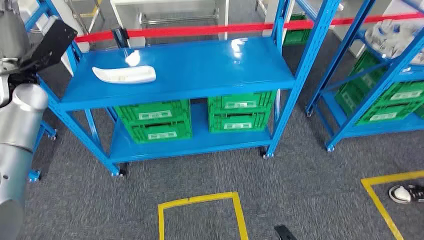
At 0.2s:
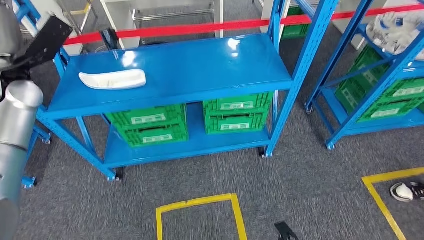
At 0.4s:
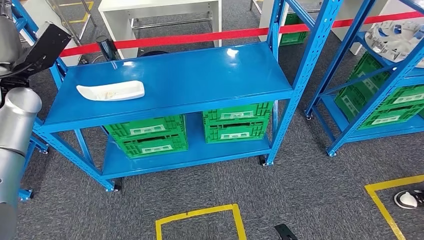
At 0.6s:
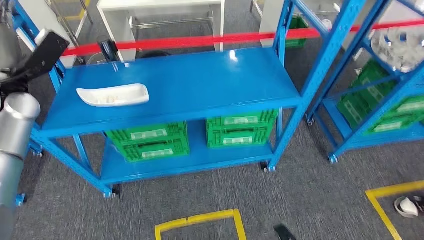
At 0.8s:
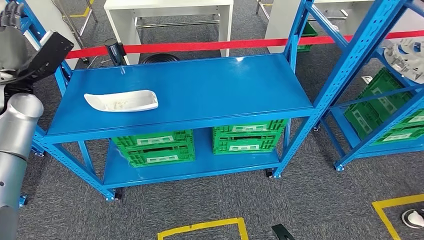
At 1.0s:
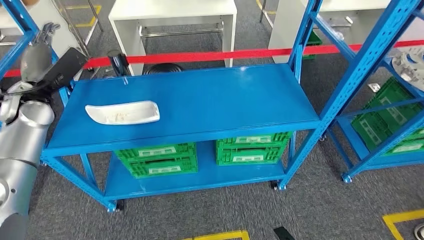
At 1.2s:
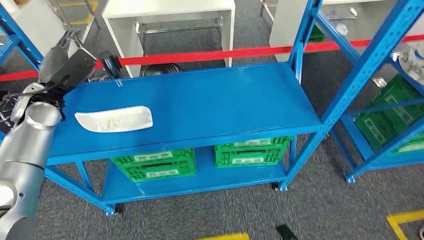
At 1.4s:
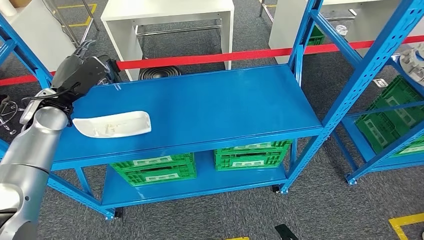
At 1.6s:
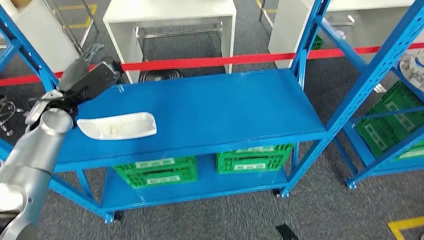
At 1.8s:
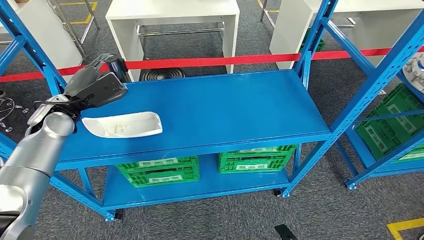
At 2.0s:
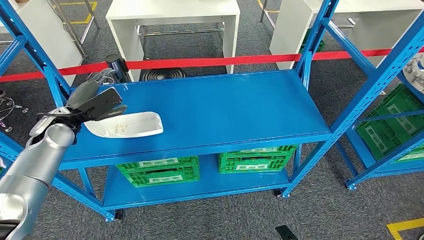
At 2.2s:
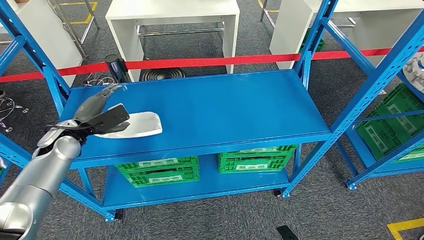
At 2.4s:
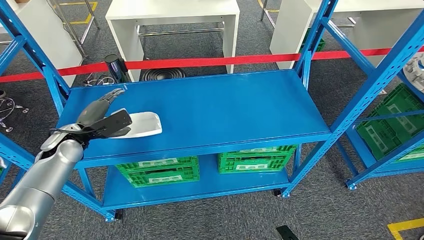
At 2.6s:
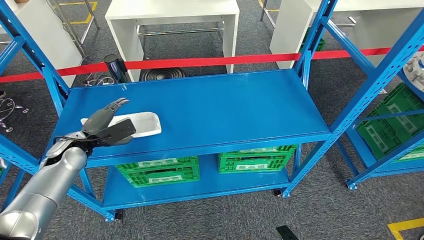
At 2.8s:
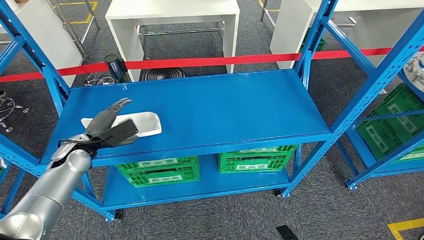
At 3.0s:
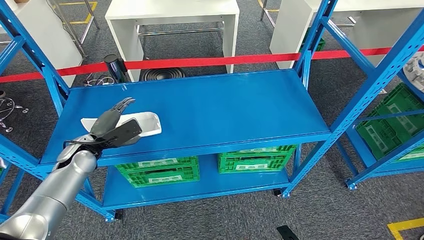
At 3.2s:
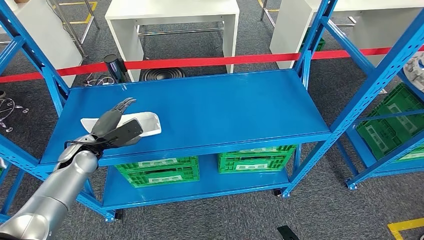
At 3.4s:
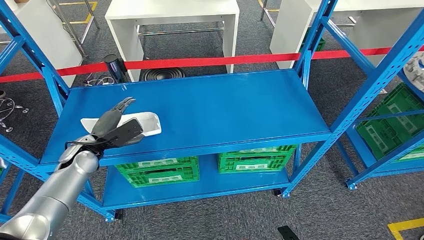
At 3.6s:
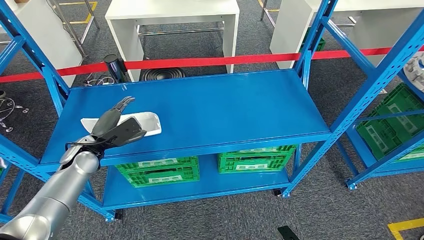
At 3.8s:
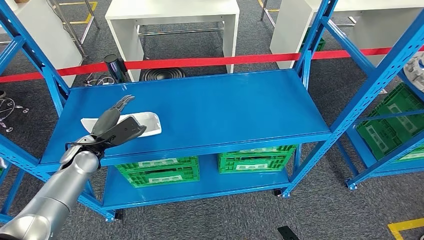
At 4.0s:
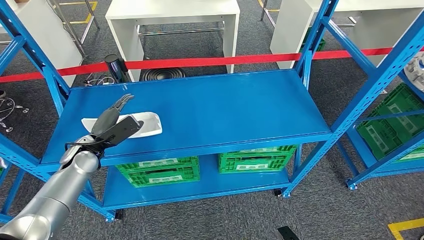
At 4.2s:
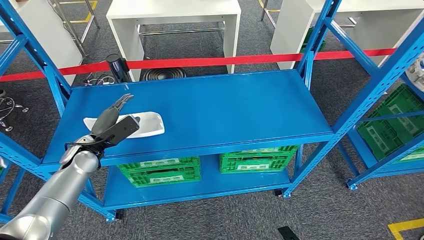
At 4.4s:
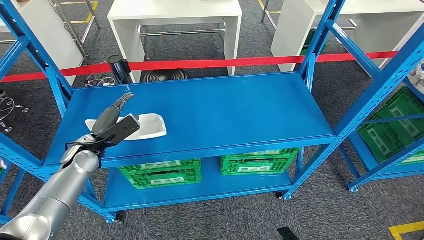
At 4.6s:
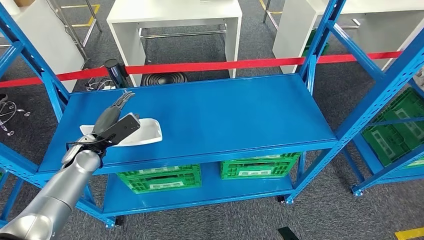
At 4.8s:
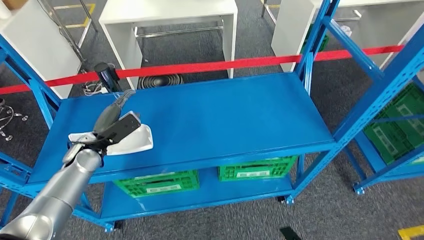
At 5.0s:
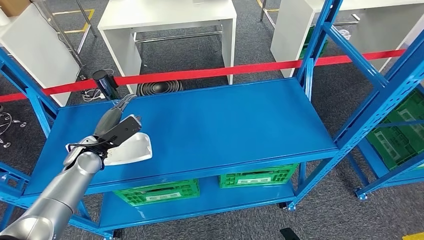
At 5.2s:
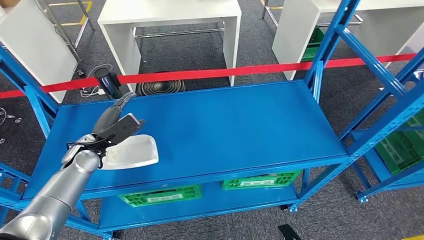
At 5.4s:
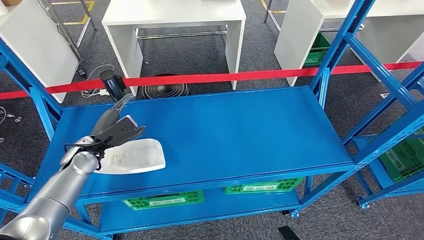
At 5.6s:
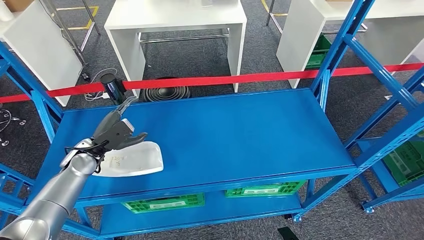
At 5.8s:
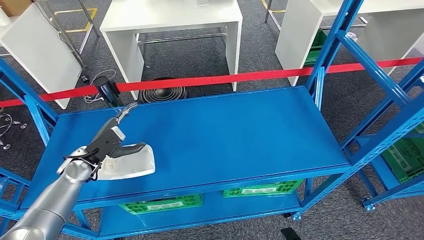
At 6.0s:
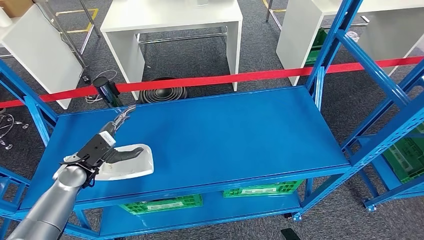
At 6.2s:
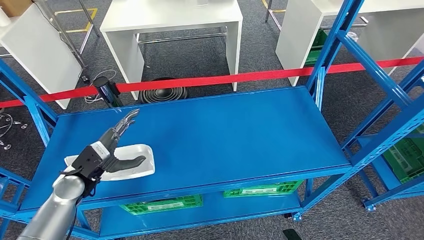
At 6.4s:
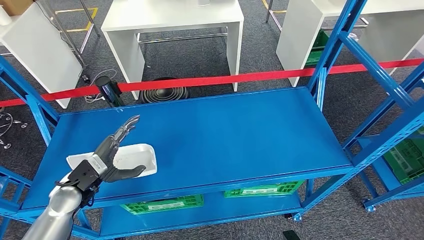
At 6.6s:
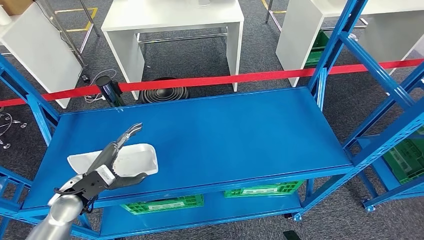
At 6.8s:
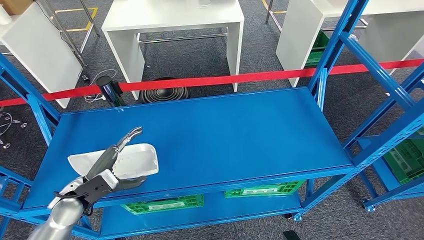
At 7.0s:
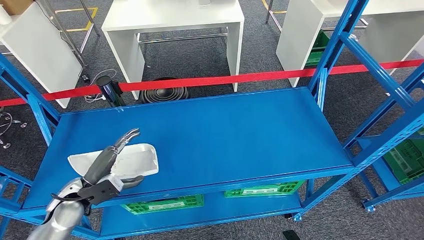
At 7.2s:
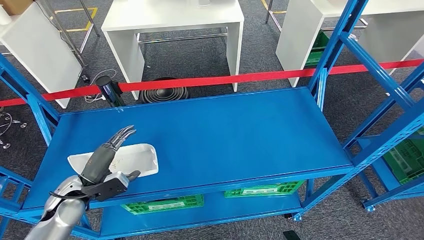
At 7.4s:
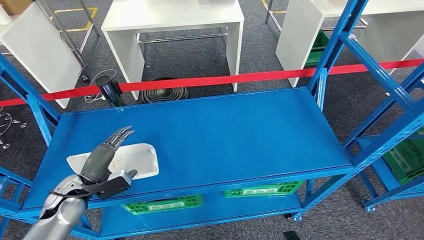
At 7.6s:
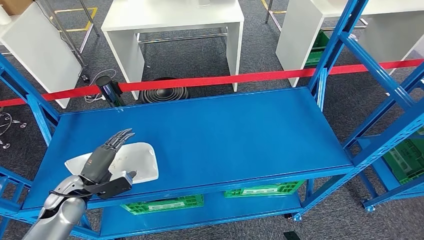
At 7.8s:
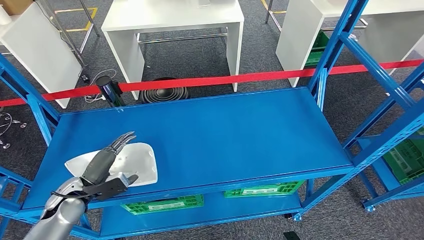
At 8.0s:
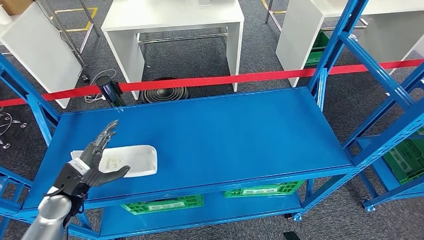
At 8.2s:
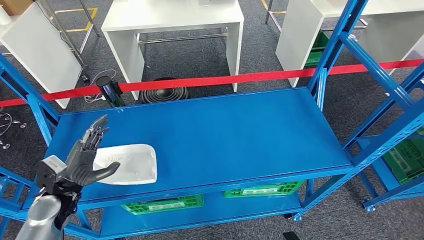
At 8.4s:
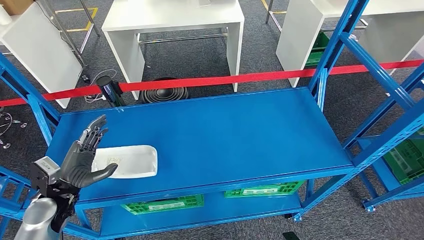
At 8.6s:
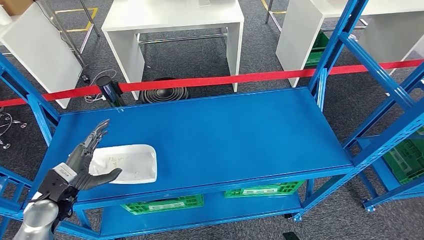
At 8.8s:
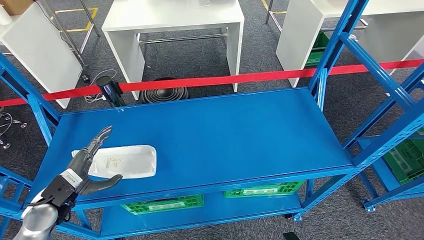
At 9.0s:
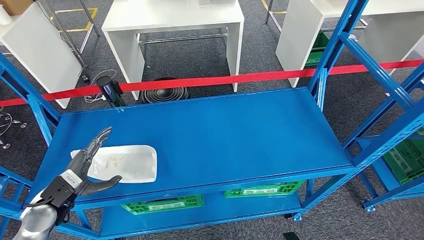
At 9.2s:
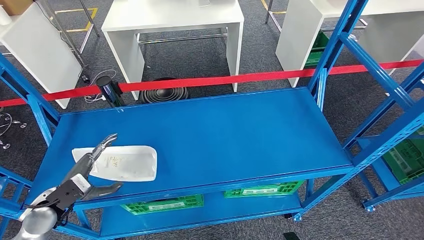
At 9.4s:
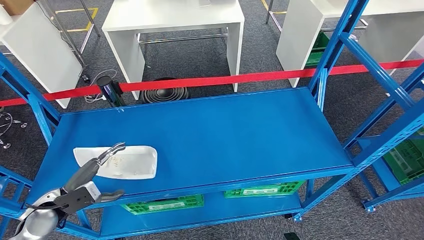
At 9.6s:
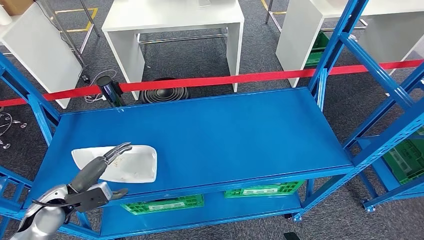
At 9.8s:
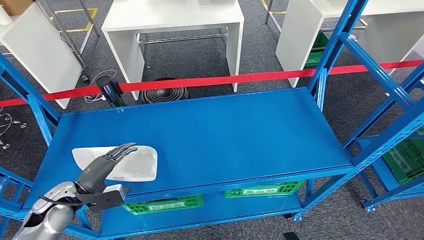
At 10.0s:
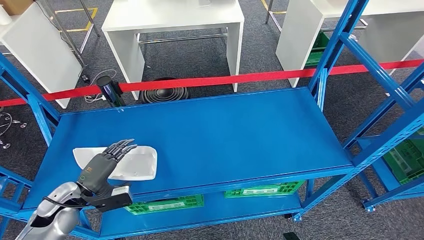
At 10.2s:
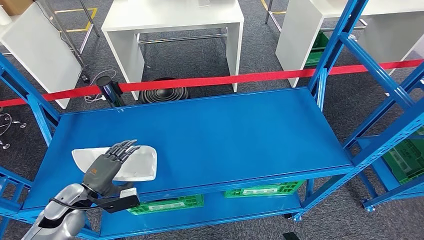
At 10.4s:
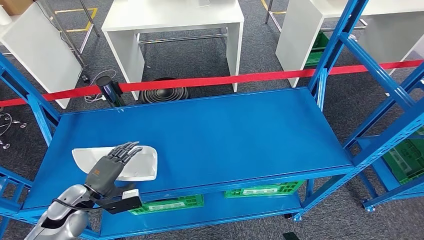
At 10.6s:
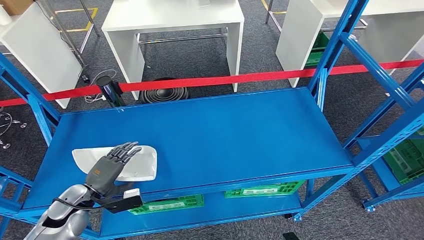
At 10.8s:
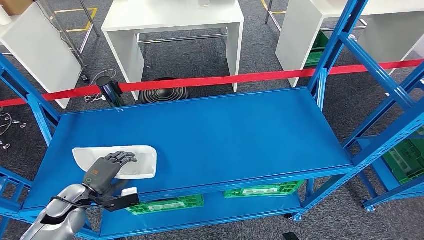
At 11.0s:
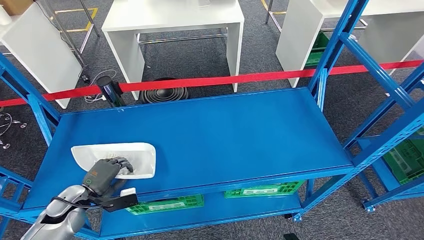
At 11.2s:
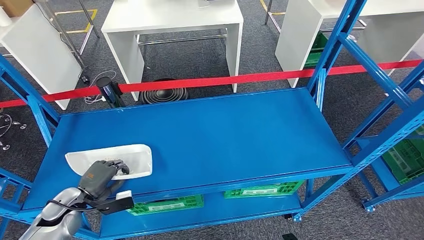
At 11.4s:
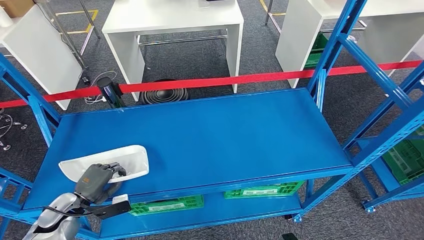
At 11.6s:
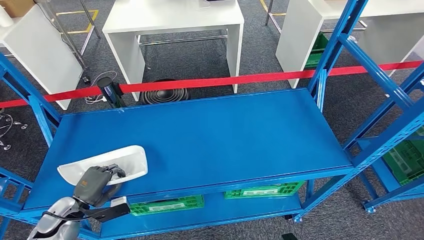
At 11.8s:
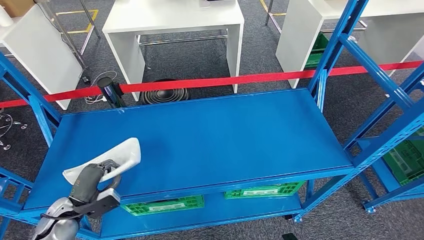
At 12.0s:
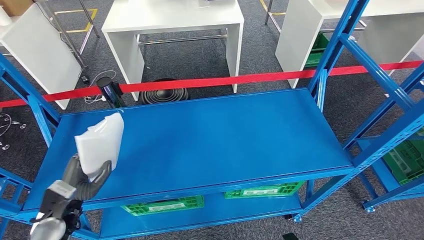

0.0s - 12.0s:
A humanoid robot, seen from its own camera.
3.0s - 4.4s: There are only small adjustments of the hands.
6.0s - 7.6s: The left hand heads backward, covering about 5 cm.

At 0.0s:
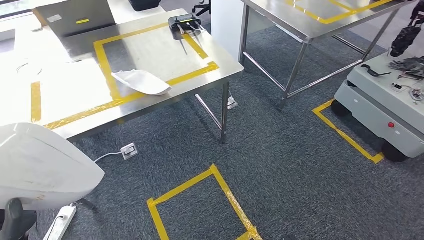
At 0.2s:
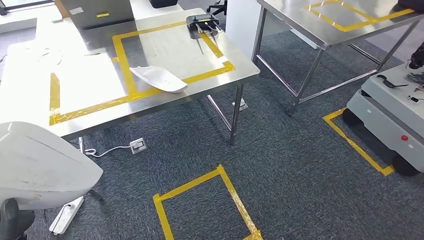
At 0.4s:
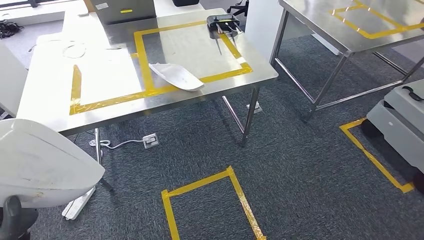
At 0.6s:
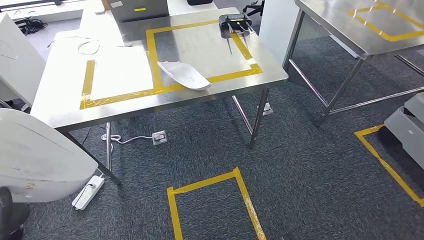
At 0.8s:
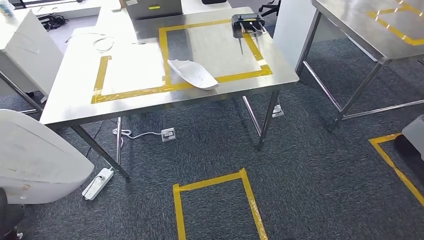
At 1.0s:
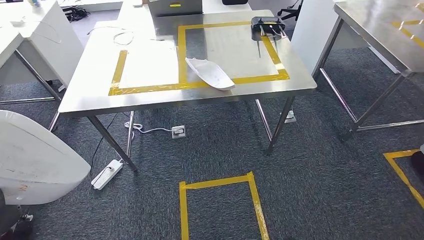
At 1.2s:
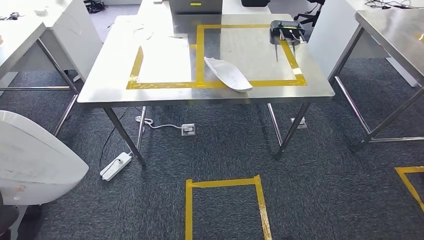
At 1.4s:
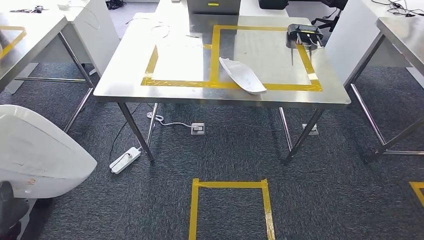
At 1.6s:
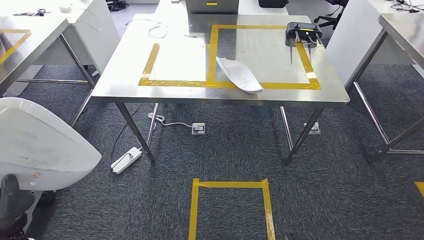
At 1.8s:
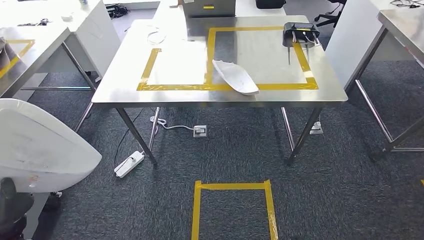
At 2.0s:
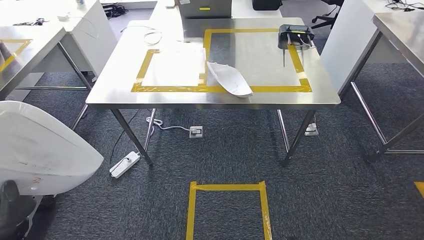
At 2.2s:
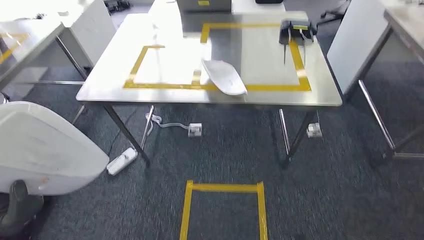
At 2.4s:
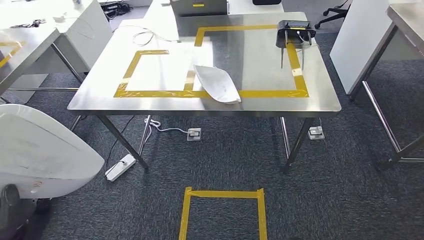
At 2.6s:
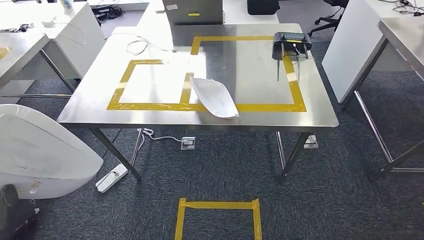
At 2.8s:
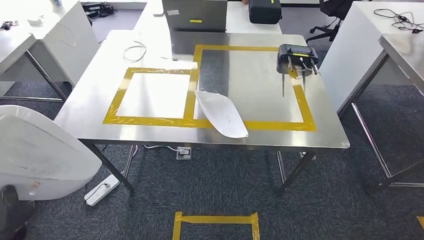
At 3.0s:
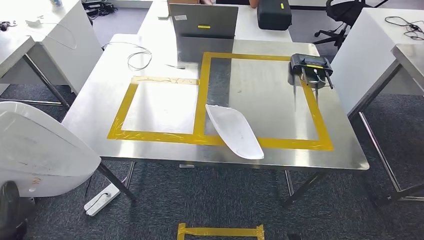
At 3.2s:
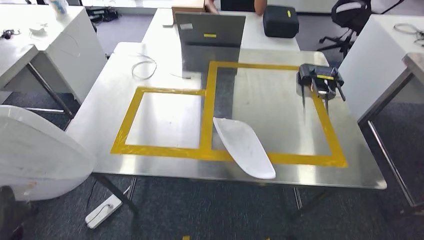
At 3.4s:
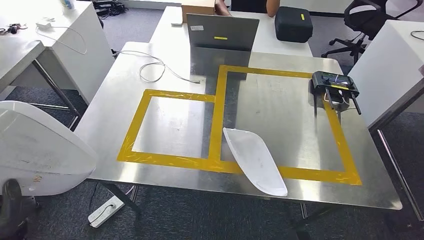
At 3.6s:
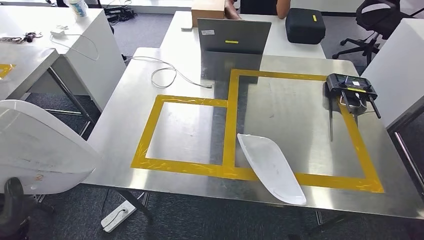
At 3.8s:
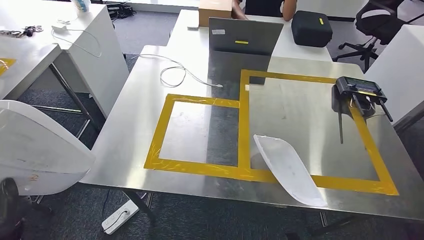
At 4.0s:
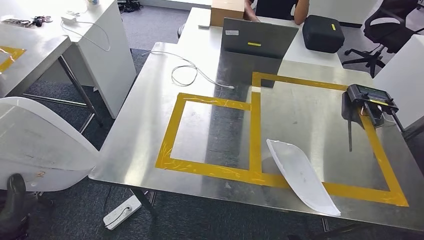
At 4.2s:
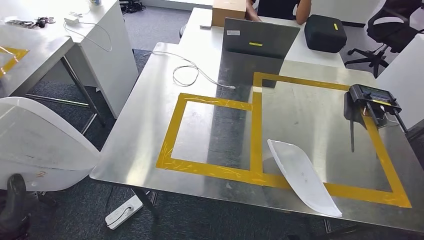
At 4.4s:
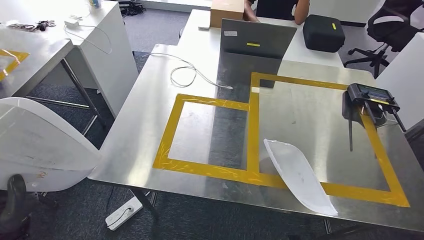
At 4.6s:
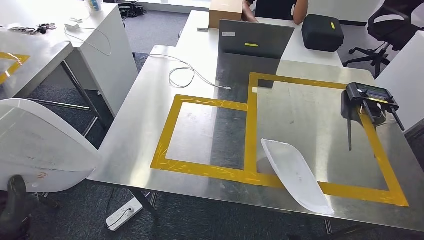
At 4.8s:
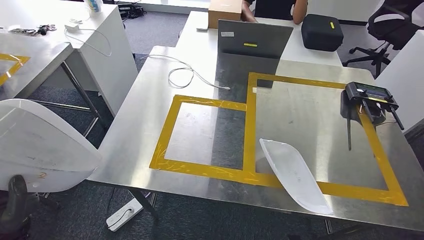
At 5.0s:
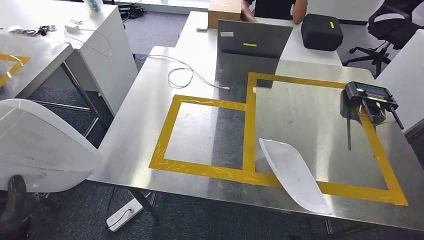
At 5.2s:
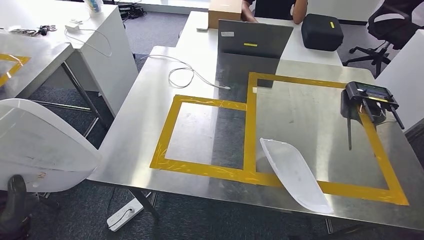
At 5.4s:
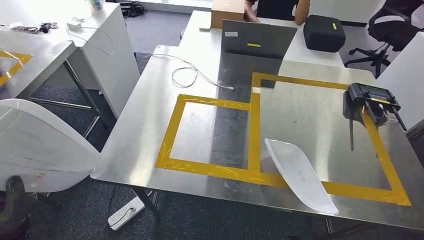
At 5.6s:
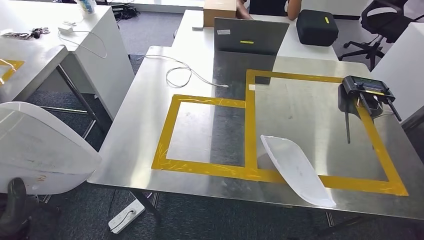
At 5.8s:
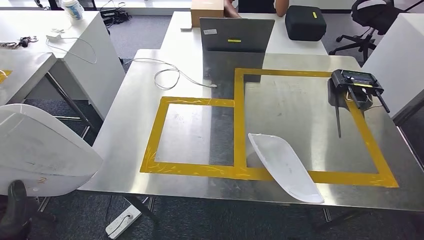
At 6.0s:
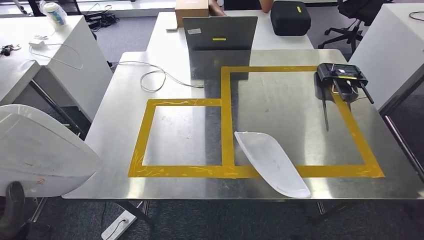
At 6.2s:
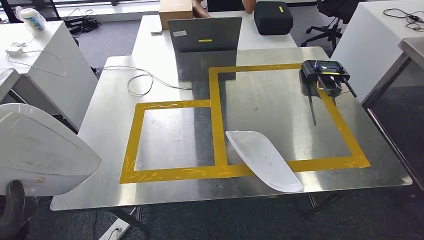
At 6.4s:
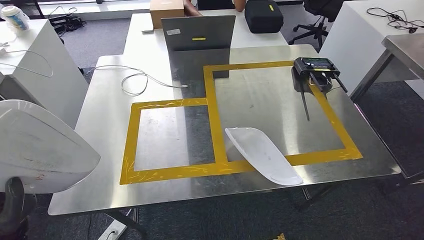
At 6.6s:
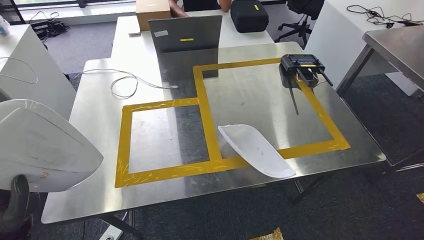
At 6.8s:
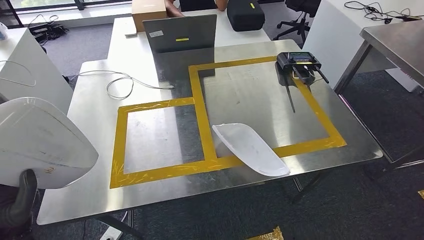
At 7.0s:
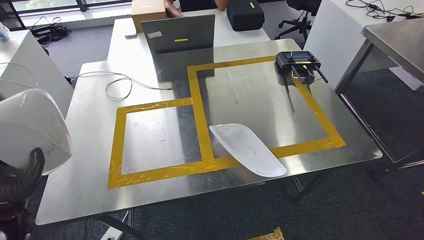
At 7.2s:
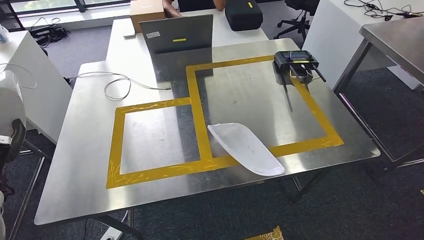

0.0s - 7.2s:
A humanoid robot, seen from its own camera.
Step, 0.0s - 3.2s: Bring the small component to the front of the workbench.
